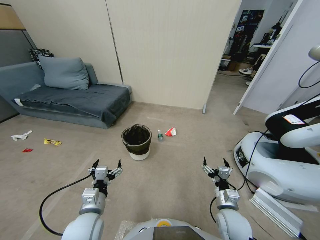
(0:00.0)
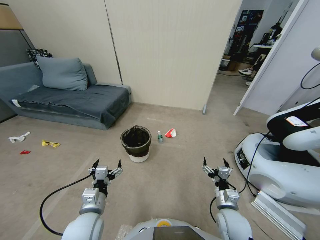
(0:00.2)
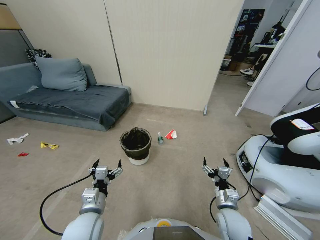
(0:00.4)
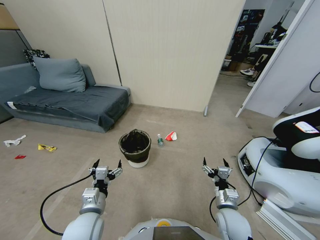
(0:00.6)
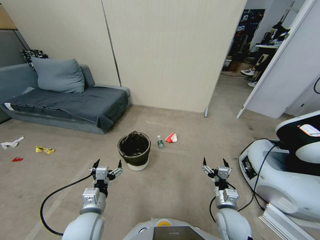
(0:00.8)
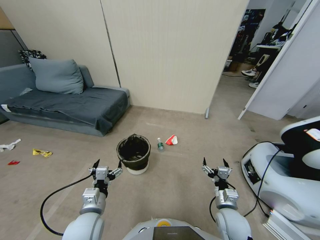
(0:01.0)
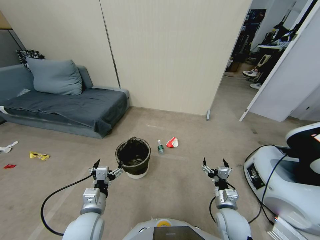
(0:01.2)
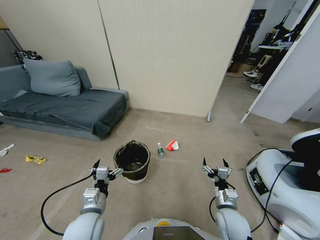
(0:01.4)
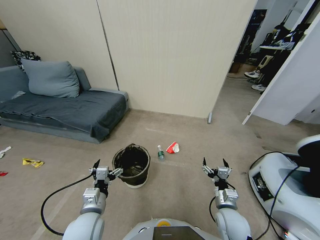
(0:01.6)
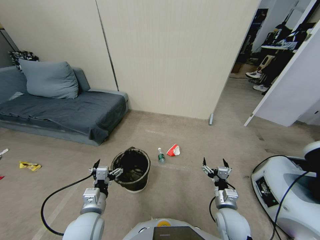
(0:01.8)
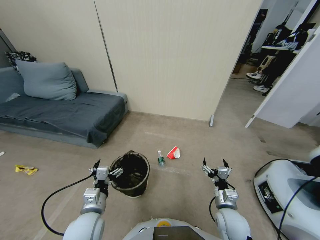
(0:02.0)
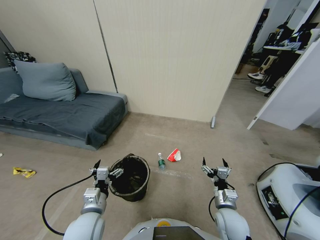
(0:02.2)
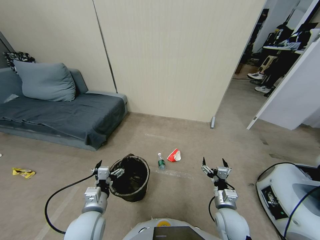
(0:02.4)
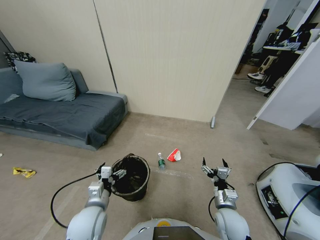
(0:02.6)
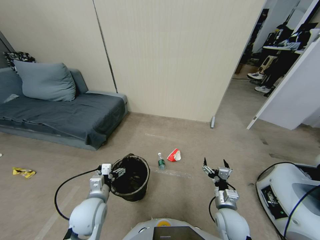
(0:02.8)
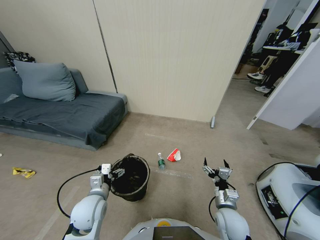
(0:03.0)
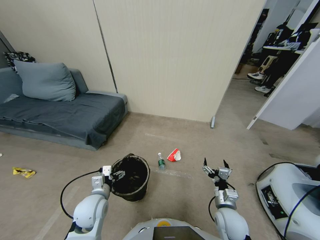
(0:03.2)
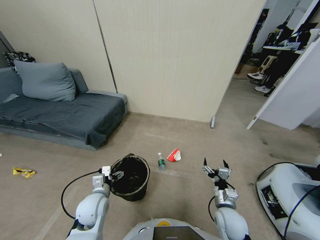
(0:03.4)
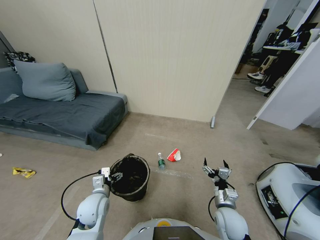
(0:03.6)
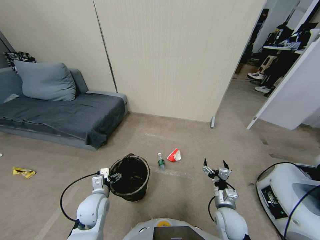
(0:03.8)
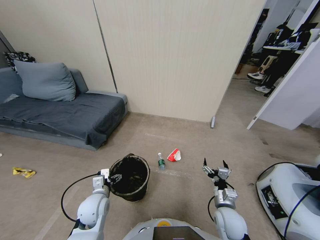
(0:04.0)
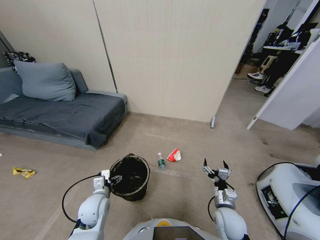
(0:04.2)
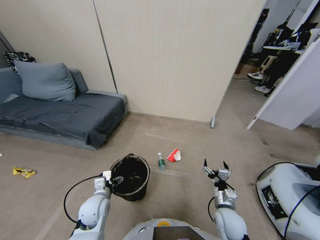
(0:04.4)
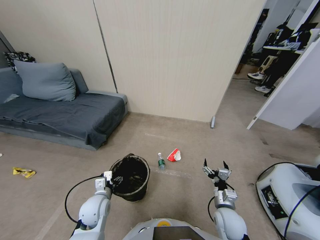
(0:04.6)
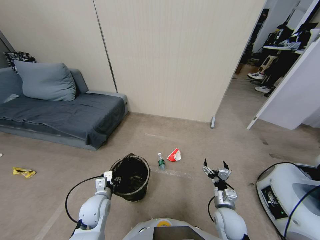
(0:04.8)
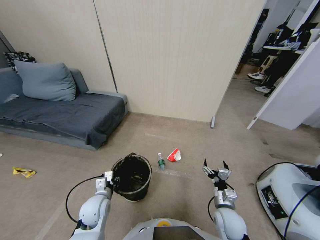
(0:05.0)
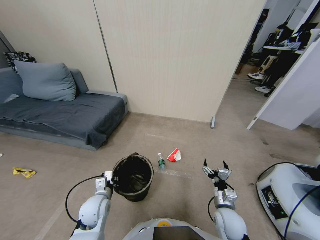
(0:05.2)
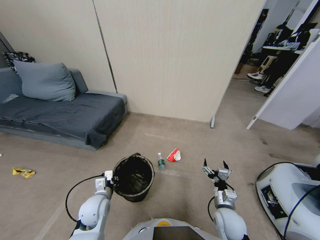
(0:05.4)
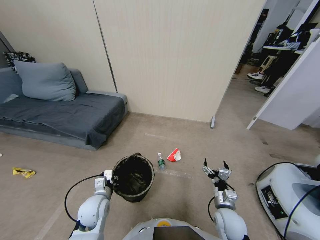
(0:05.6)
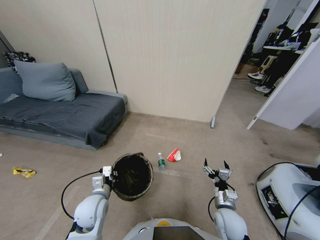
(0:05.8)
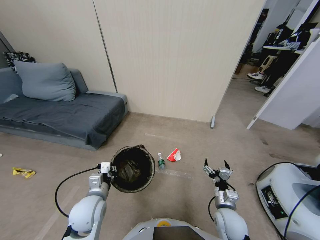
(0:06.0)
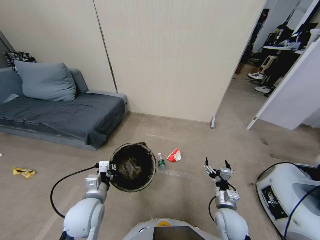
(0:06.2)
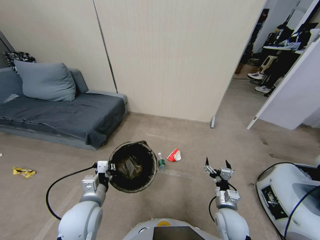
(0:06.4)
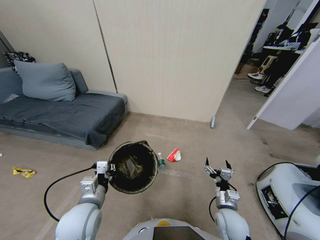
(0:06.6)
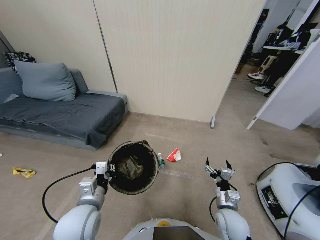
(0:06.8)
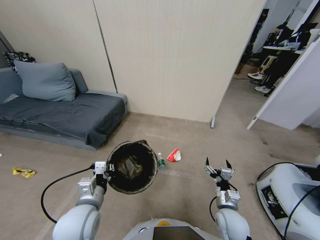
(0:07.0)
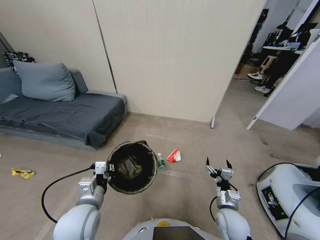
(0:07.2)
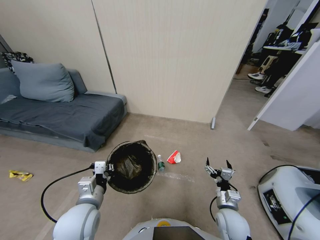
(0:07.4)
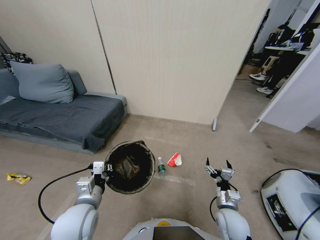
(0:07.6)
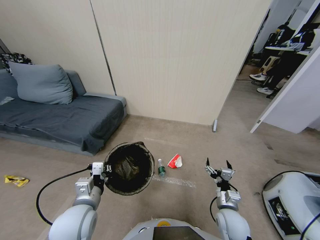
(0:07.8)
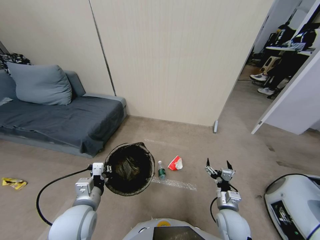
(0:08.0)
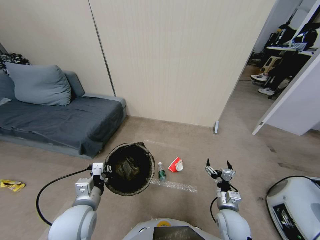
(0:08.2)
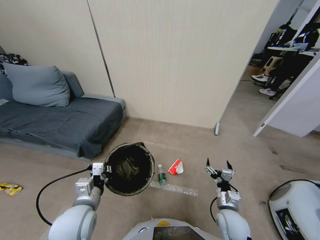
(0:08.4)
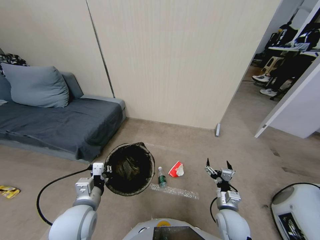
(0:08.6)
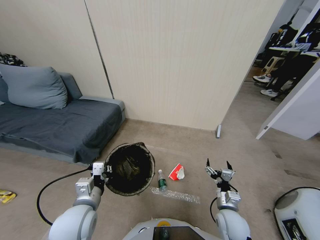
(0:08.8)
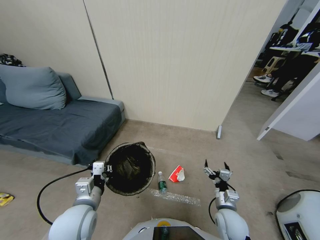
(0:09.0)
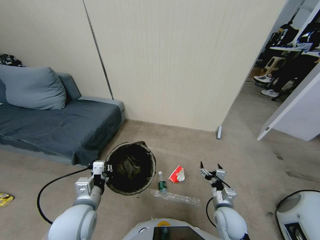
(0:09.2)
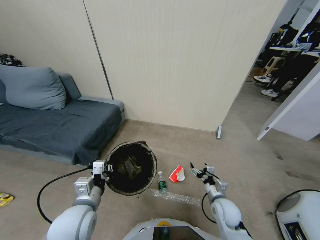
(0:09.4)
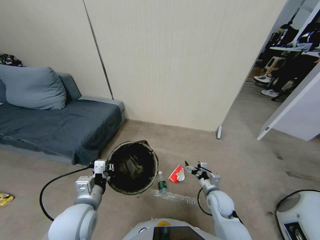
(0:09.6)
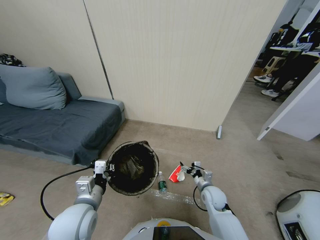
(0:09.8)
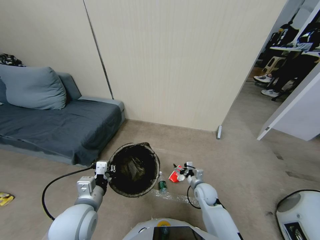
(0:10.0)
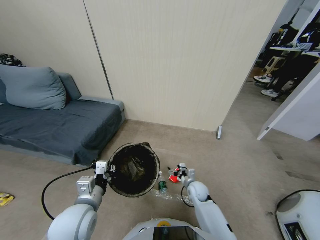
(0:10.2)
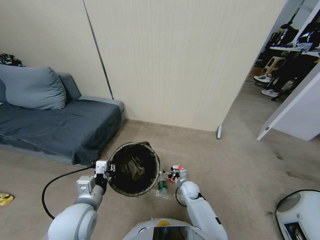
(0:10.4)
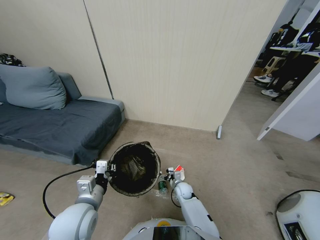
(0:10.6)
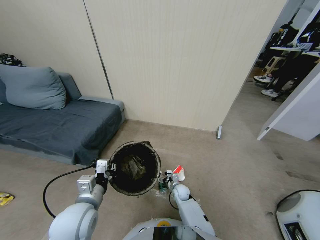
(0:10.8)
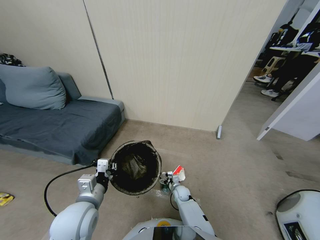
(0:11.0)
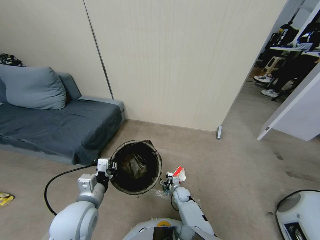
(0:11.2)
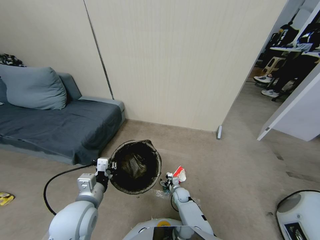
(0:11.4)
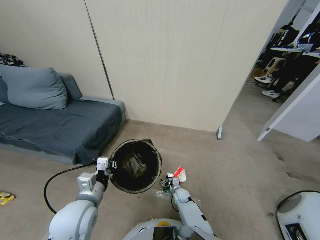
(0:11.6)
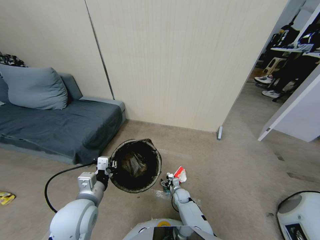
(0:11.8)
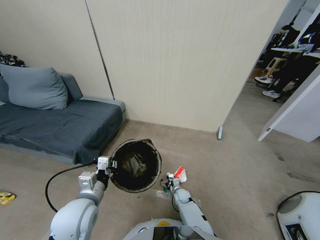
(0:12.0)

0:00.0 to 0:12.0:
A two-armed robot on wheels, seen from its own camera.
Task of the whole recording: Pick up the trash bin, then pick up the garbage from the floor and place it into the trash bin.
0:01.6 to 0:03.0: The left gripper moves forward, roughly 5 cm.
0:03.0 to 0:04.4: The grippers move only a little.
0:04.4 to 0:06.0: The left gripper travels upward by about 10 cm, and closes its fingers.
0:06.0 to 0:07.6: There are only small adjustments of the grippers.
0:09.0 to 0:10.4: The right gripper heads forward, downward and to the left, covering some 20 cm.
0:10.4 to 0:12.0: The right gripper is displaced downward by roughly 10 cm.

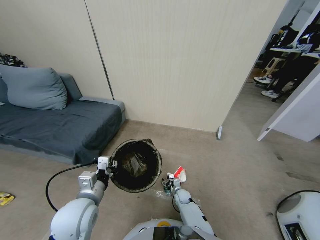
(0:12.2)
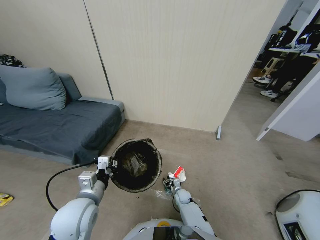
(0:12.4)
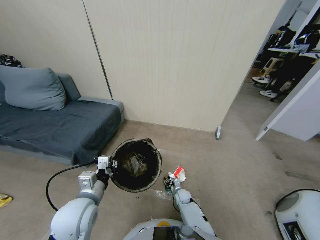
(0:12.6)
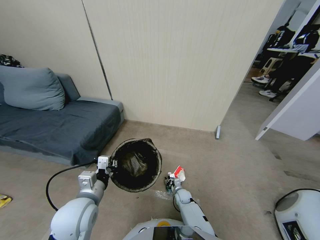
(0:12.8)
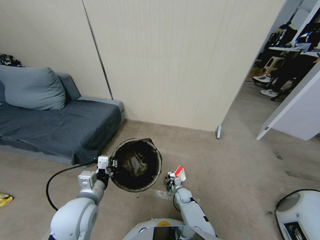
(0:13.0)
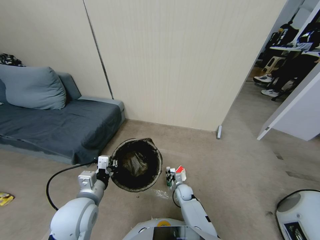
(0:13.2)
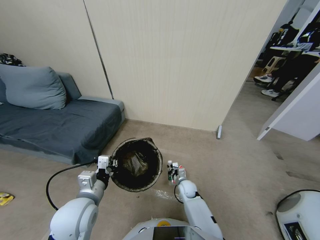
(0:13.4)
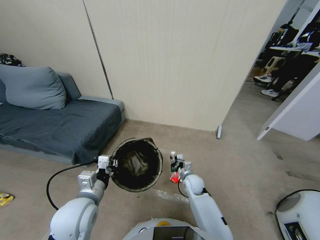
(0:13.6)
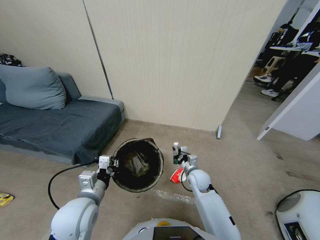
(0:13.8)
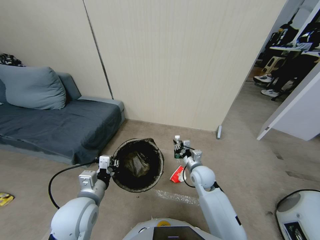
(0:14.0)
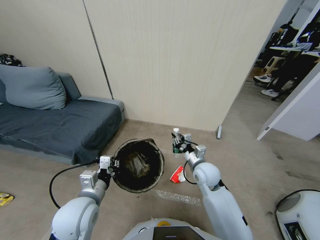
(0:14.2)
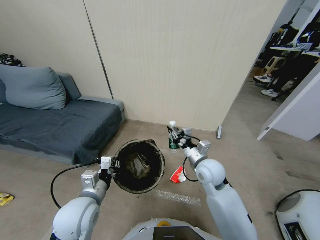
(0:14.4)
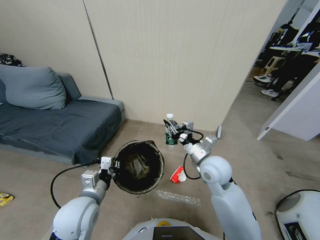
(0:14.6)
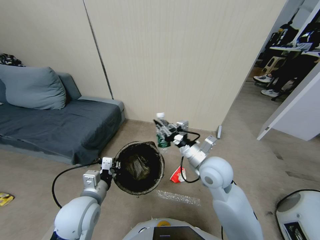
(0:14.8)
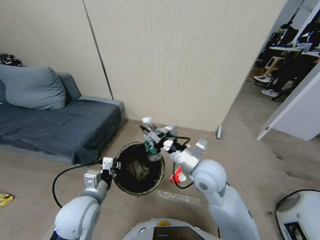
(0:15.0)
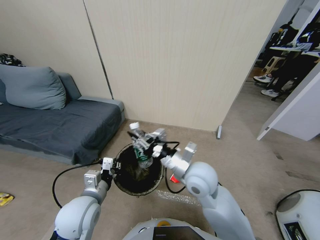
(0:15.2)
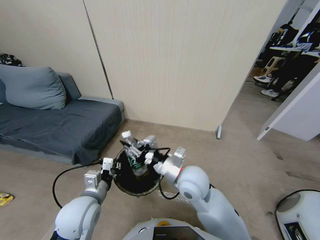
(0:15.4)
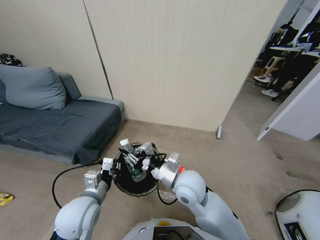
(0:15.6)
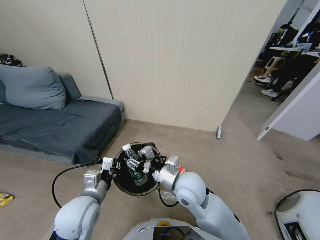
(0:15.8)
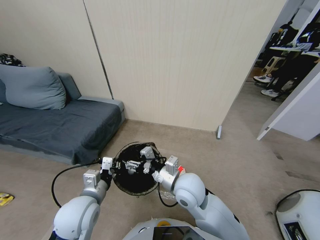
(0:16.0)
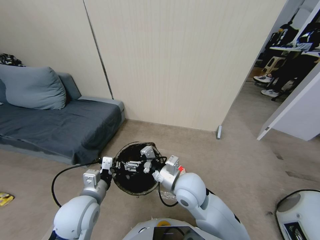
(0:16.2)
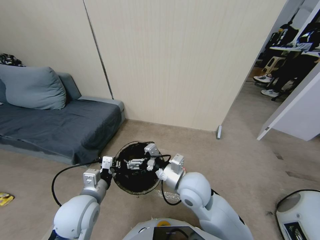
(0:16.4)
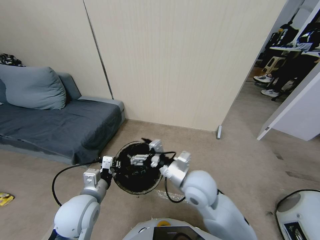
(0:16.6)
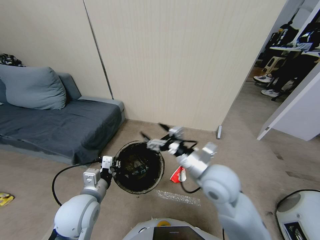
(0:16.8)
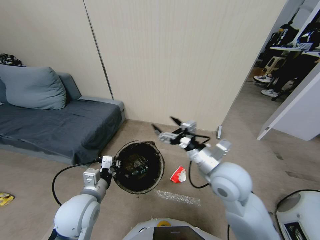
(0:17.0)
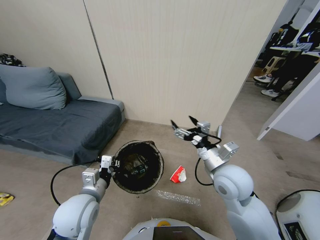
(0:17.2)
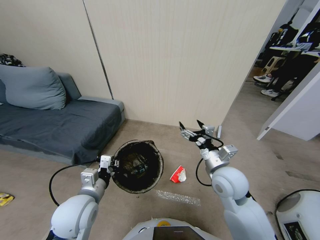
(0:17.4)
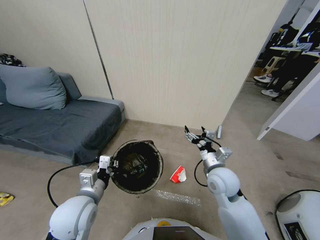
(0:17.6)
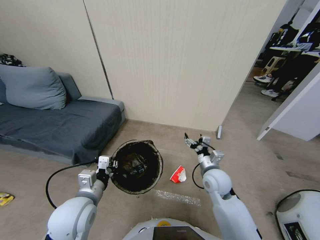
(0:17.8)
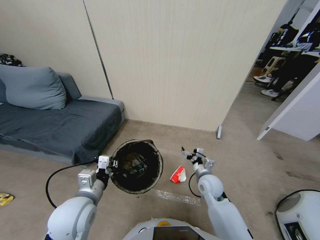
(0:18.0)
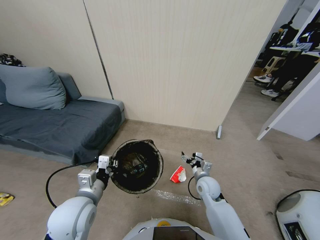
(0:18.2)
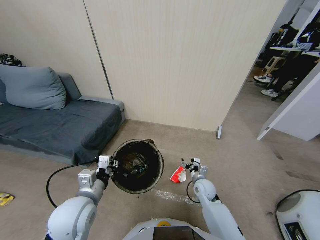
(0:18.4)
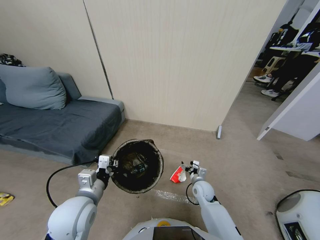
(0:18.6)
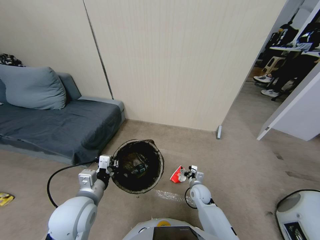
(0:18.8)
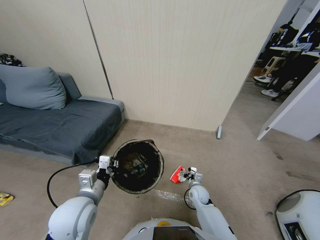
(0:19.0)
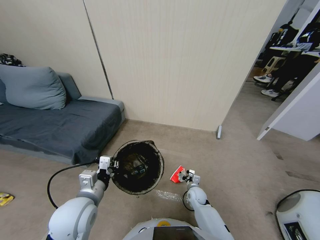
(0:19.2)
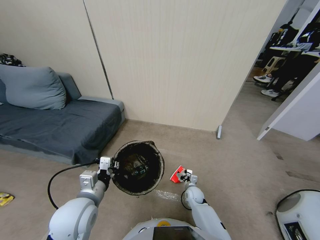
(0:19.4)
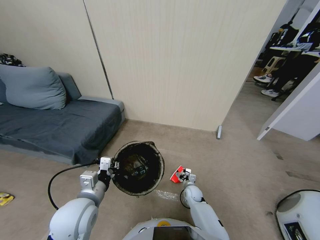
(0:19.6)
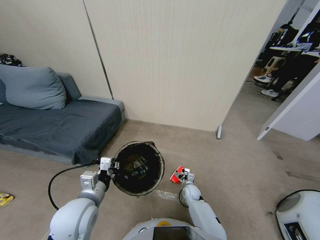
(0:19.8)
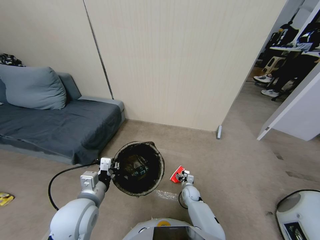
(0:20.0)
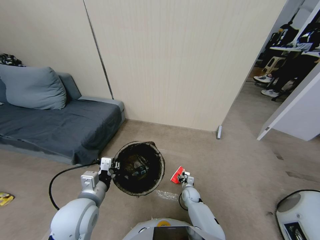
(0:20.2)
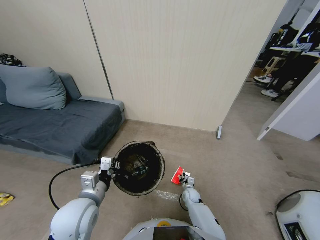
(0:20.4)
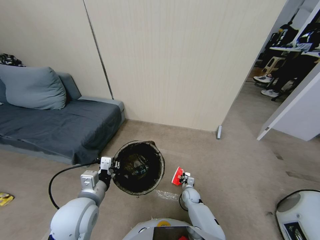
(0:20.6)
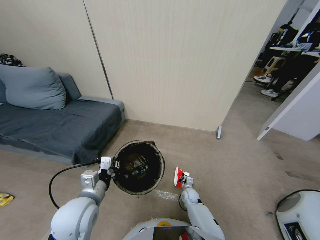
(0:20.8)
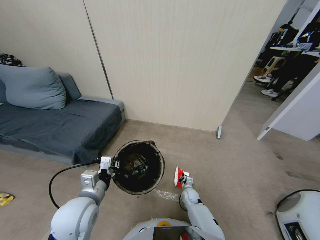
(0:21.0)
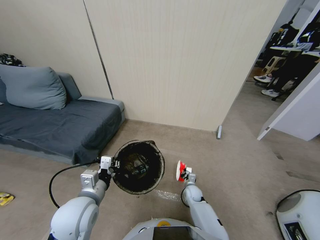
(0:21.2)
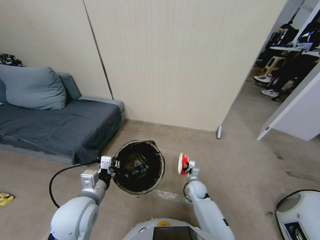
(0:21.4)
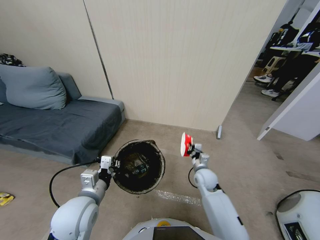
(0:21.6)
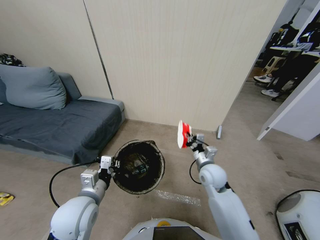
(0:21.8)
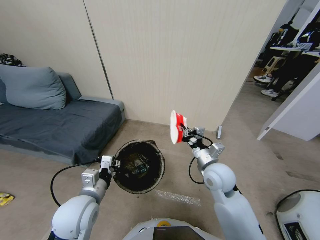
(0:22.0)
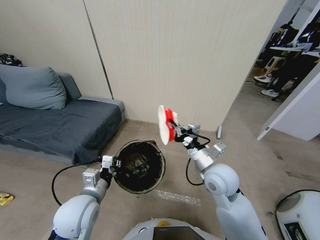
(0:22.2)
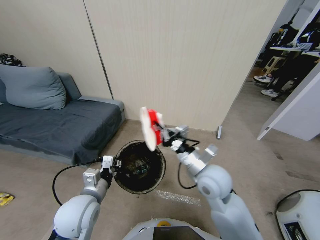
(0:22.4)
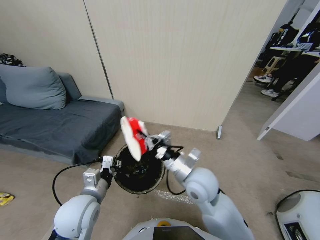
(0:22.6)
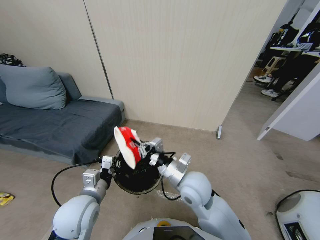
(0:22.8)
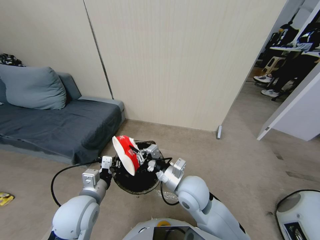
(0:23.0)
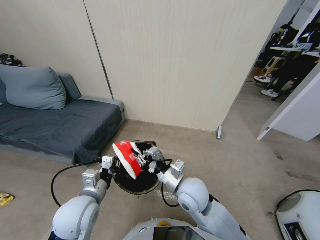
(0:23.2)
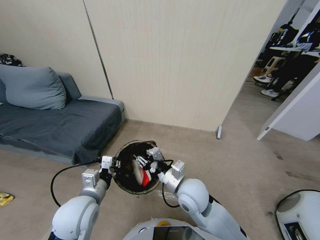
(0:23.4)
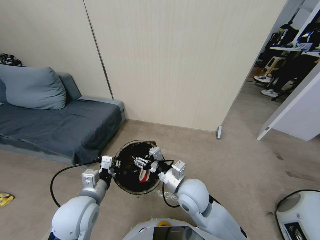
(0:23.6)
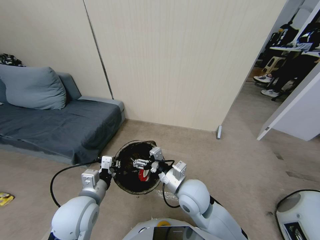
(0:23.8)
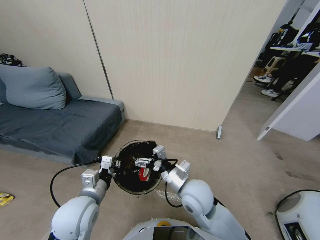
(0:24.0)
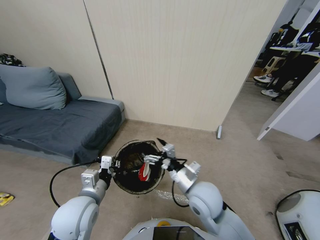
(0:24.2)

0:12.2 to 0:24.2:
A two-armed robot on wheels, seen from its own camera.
Task of the whole recording: Pick up the trash bin, then pick up the garbage from the floor and place it into the trash bin.
0:12.2 to 0:13.8: The right gripper goes roughly 25 cm upward, and closes.
0:13.8 to 0:15.2: The right gripper moves upward, to the left and backward, about 20 cm.
0:15.2 to 0:16.6: The right gripper opens.
0:16.6 to 0:18.2: The right gripper goes about 20 cm downward.
0:18.2 to 0:19.8: The right gripper heads downward, covering roughly 15 cm.
0:19.8 to 0:21.2: The right gripper travels upward by roughly 5 cm, and closes up.
0:21.2 to 0:22.6: The right gripper is displaced upward by some 30 cm.
0:22.6 to 0:24.2: The right gripper shifts by about 5 cm, and opens its fingers.
